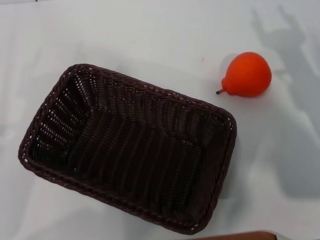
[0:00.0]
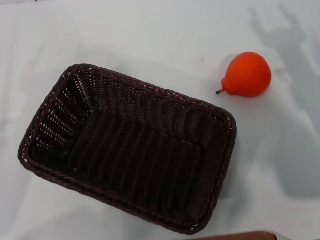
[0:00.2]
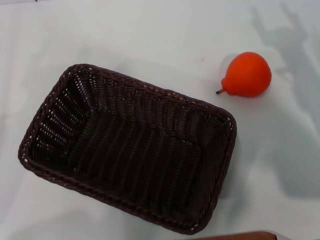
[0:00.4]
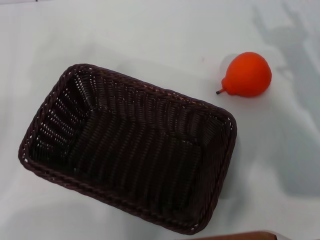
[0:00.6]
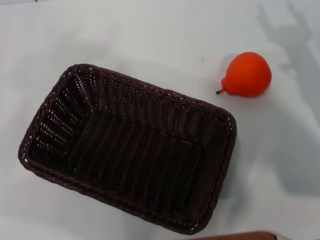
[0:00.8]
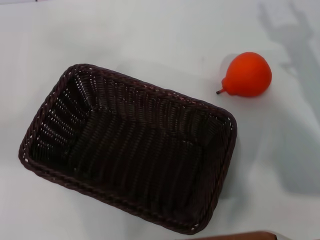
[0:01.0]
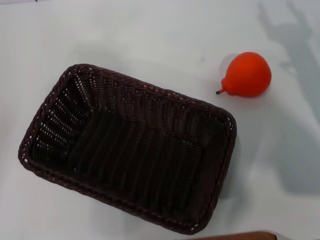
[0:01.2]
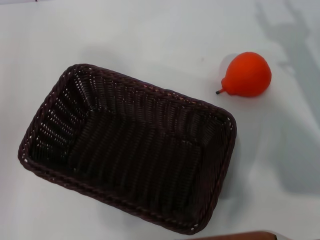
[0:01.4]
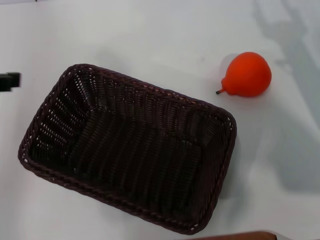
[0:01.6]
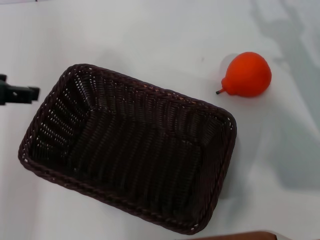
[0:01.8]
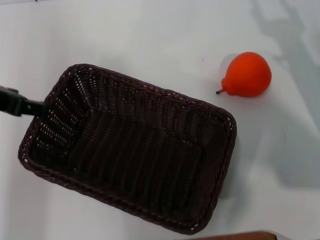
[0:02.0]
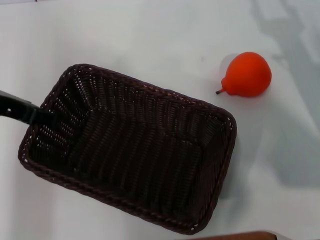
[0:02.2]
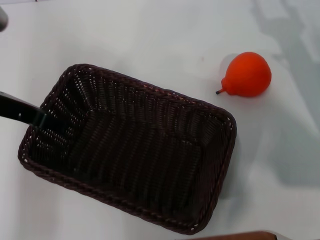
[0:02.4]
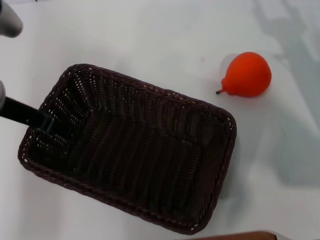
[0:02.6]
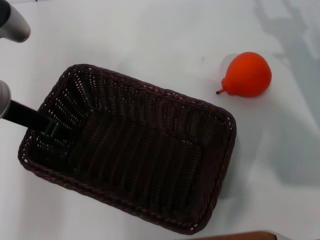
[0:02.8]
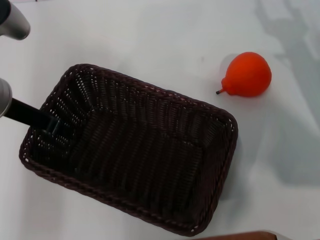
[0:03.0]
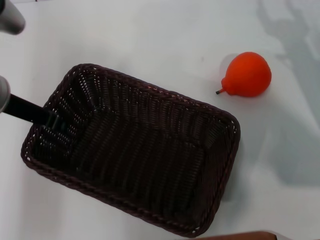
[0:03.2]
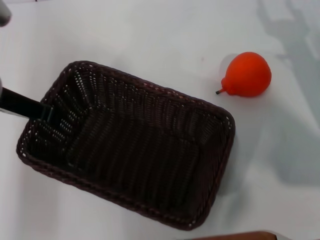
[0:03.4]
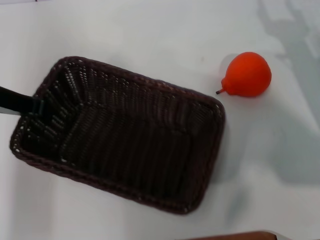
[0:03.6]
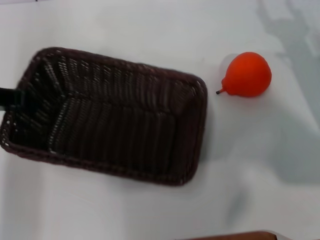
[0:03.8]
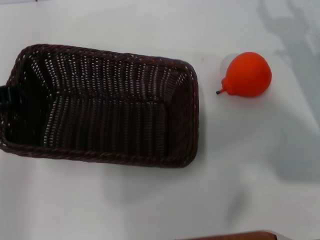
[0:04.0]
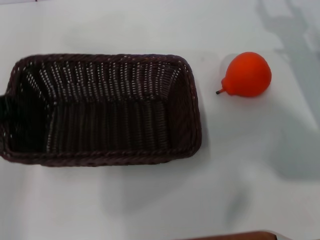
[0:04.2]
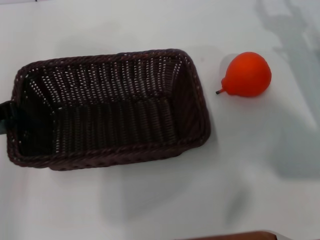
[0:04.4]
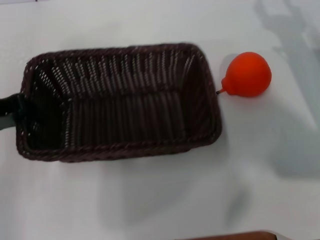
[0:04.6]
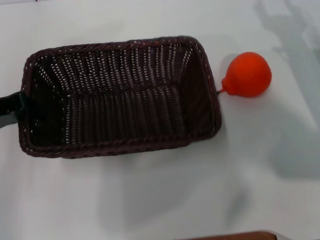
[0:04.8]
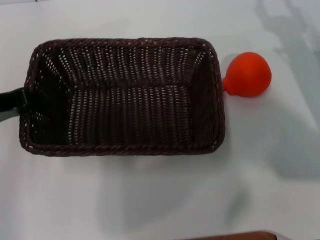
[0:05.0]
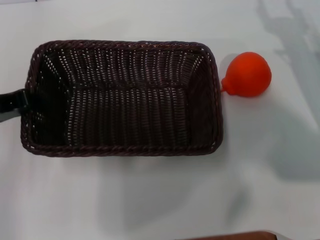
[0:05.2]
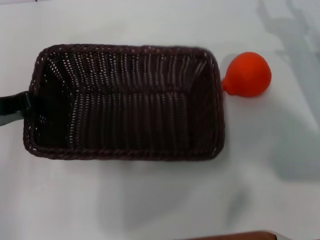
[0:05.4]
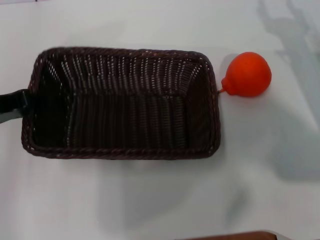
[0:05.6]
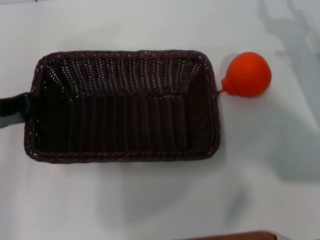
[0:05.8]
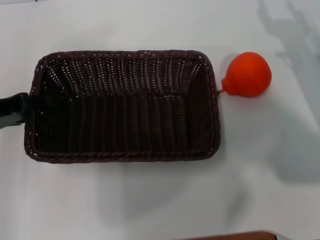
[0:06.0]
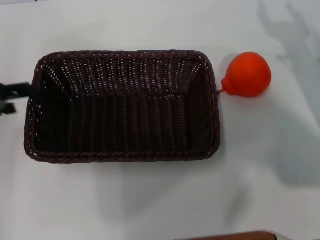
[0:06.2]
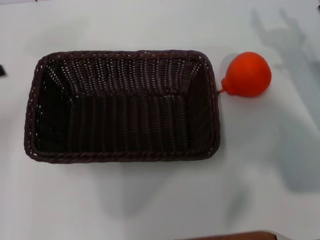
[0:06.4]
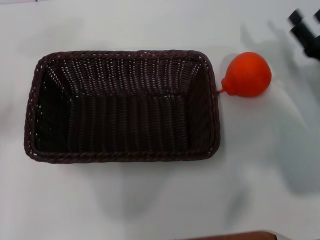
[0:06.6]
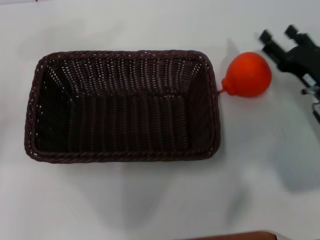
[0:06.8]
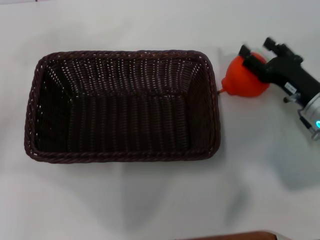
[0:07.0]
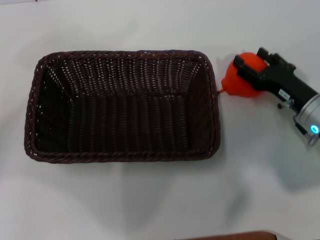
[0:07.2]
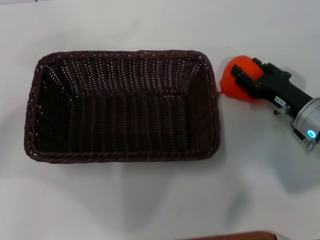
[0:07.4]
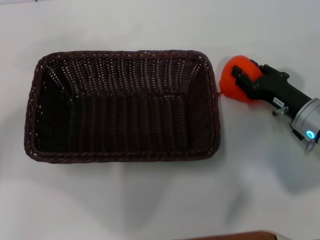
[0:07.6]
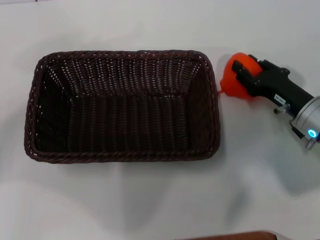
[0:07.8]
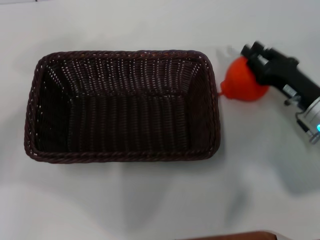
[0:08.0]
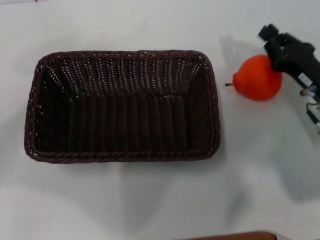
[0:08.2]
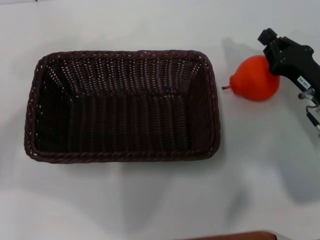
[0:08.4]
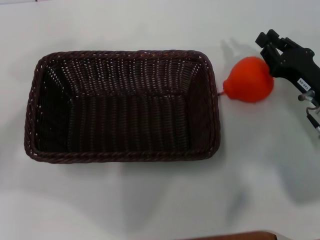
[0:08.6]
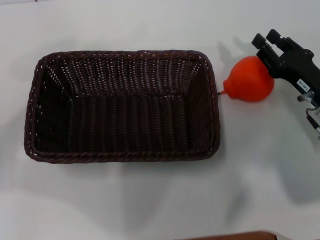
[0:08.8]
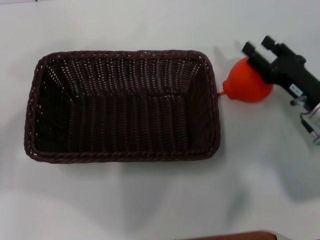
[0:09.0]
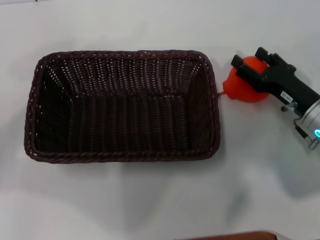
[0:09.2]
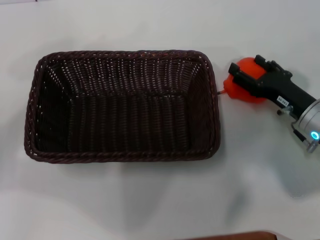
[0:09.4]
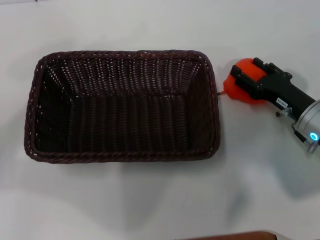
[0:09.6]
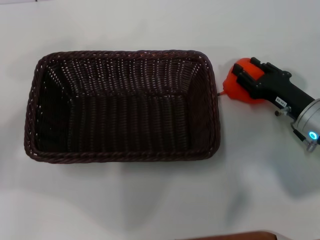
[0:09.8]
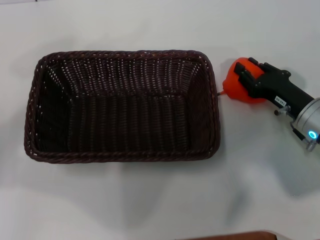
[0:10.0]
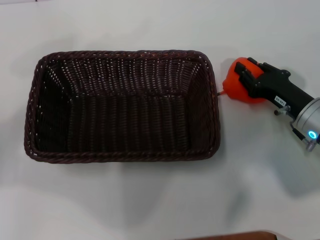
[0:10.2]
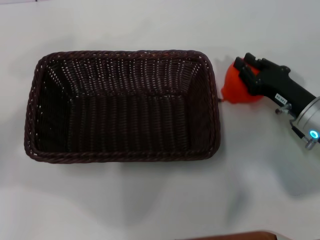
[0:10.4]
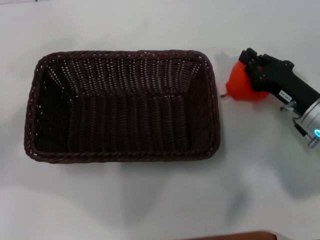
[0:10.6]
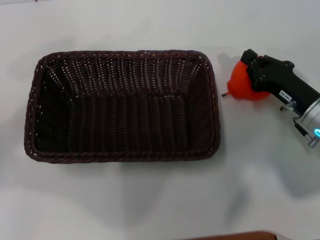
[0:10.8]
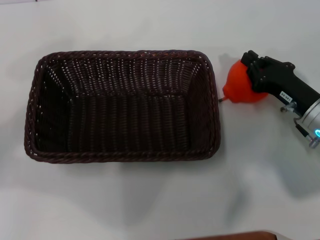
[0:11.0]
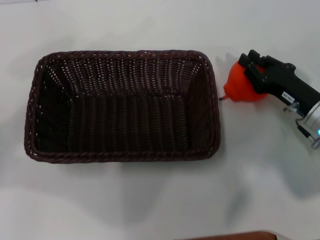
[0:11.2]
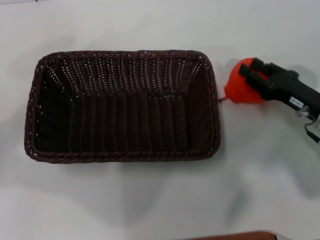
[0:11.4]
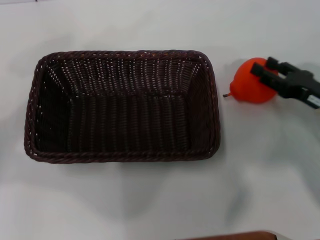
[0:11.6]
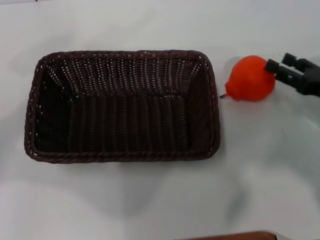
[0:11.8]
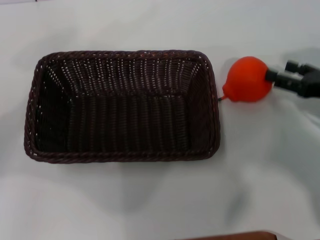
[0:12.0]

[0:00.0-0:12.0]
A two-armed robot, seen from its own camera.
Task of the whole recording: the left gripper pick up the black basket and place it horizontally in the middle of the table, the right gripper pick up the orange and place it into the black basket.
Step, 0:00.0 to 0:03.6: Pick up the dark basket with the left gripper.
Step, 0:03.8 to 0:06.0: Place the dark basket in the center of view with the left gripper.
0:00.0 to 0:01.6: The left gripper travels upward and forward by approximately 20 cm; the right gripper opens.
0:01.6 to 0:03.0: The left gripper is displaced to the right, downward and forward by approximately 10 cm.
0:03.0 to 0:04.4: The left gripper goes roughly 10 cm to the left, and closes its fingers.
0:04.4 to 0:06.0: The left gripper opens up.
0:06.0 to 0:07.6: The right gripper shifts roughly 10 cm to the left and downward; the left gripper heads to the left, covering roughly 10 cm, and opens its fingers.
0:07.6 to 0:09.0: The right gripper closes, then opens again.
0:09.0 to 0:10.4: The right gripper opens, then closes again.
0:10.4 to 0:12.0: The right gripper shifts about 10 cm to the right and upward, and opens.

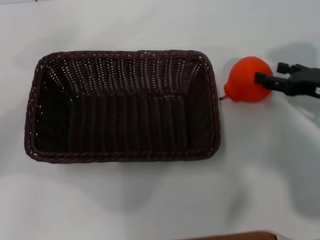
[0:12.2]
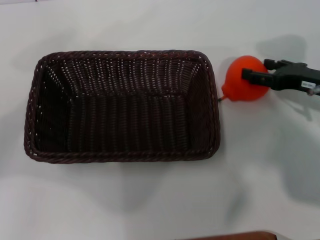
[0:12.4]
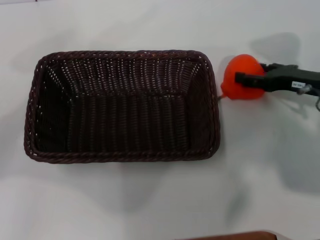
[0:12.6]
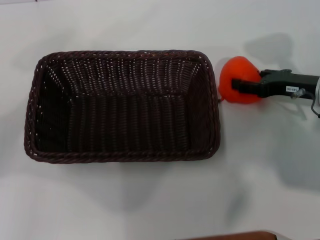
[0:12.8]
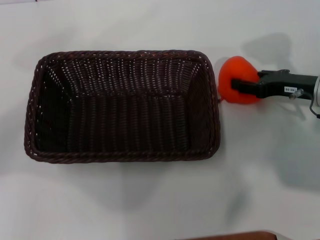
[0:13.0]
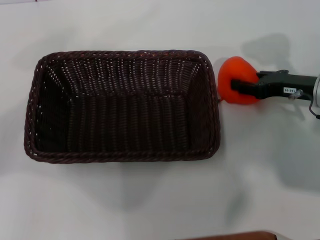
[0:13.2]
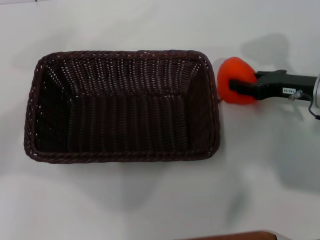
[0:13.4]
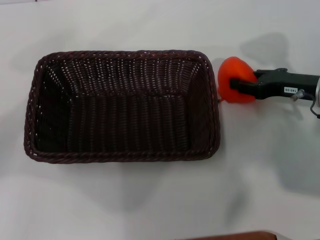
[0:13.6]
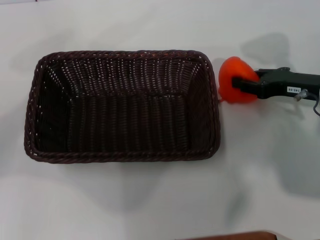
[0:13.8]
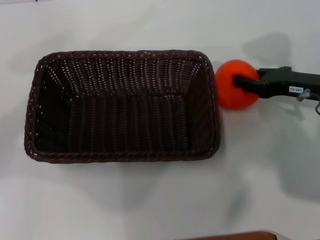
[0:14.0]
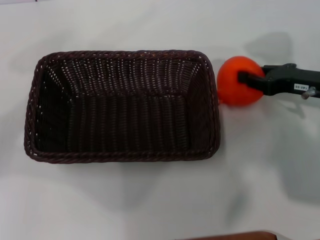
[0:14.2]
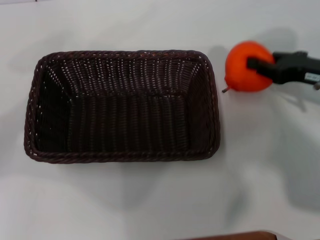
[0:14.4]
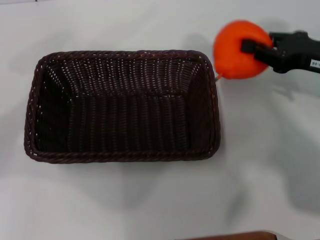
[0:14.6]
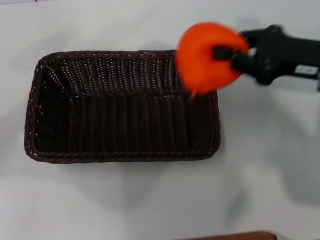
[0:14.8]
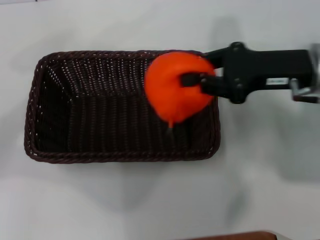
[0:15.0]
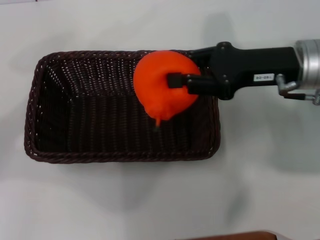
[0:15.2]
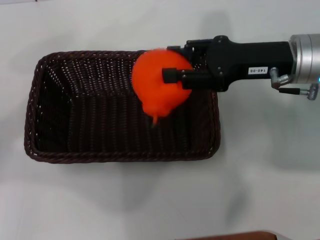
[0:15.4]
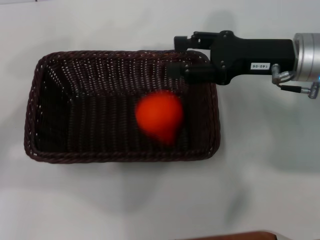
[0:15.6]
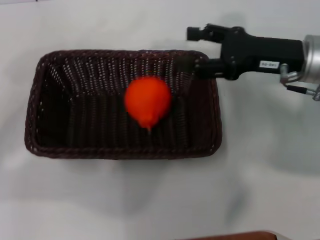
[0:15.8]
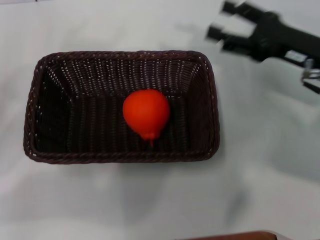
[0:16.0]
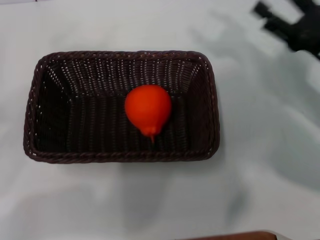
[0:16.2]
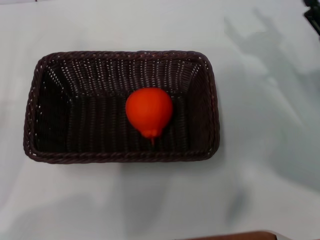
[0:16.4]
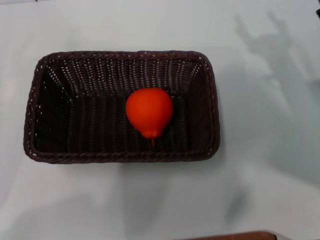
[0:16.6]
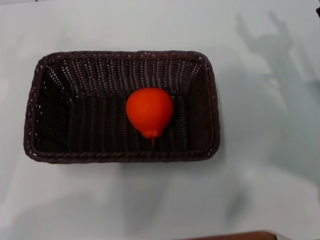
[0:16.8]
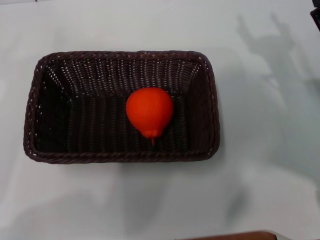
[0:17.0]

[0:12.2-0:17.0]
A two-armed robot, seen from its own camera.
Task of the whole recording: the left gripper pick up the black basket and place it horizontally in the middle of the table, the right gripper pick up the orange and place it into the black basket.
Step, 0:12.2 to 0:14.2: Pick up the orange with the right gripper.
Step, 0:14.4 to 0:15.6: Place the orange into the dark basket with the right gripper.
0:12.2 to 0:13.8: The right gripper closes its fingers.
0:13.8 to 0:15.4: The right gripper travels to the left and upward by about 10 cm.
0:15.4 to 0:17.0: The right gripper heads downward, to the right and backward, covering roughly 15 cm, and opens up; the left gripper moves downward and backward, some 10 cm.

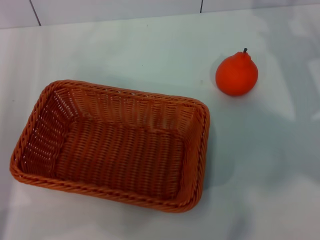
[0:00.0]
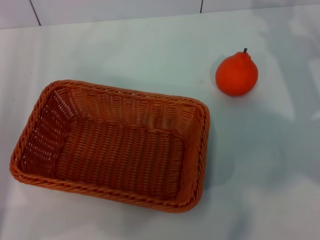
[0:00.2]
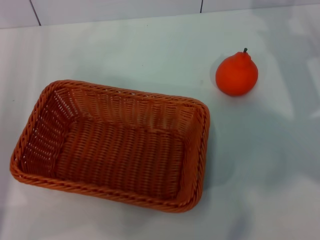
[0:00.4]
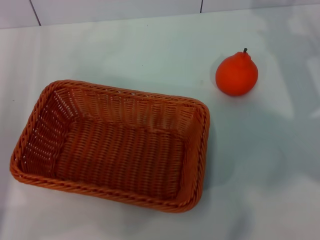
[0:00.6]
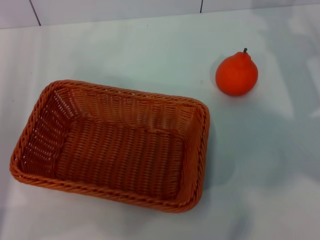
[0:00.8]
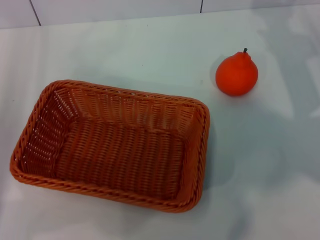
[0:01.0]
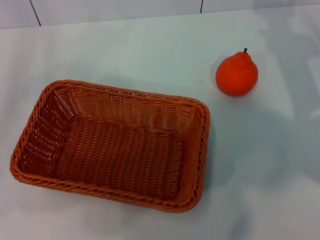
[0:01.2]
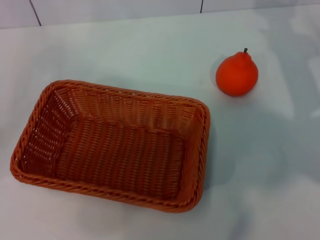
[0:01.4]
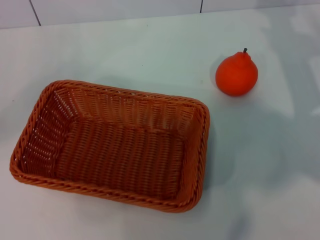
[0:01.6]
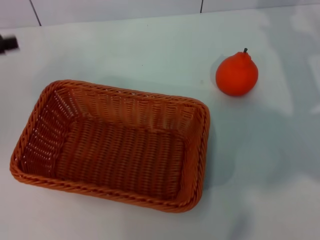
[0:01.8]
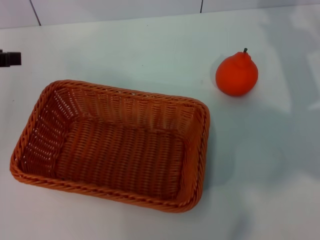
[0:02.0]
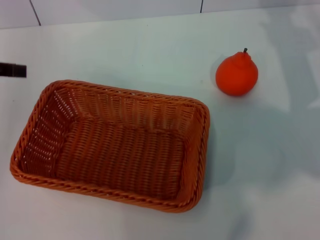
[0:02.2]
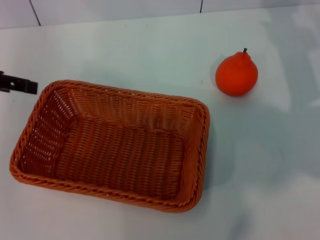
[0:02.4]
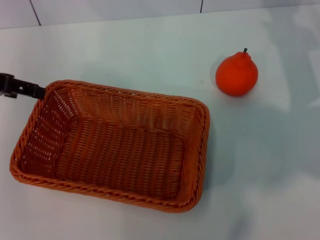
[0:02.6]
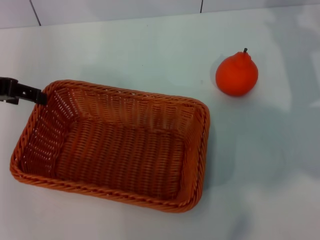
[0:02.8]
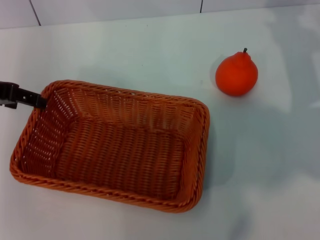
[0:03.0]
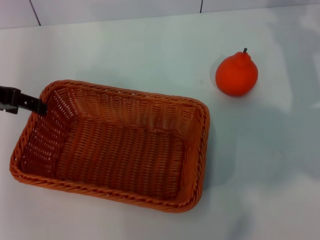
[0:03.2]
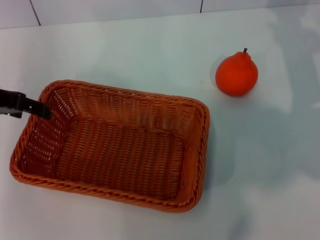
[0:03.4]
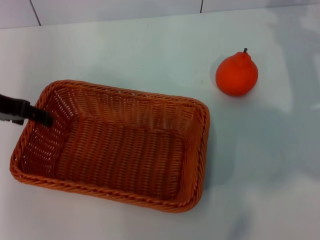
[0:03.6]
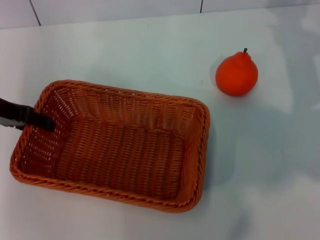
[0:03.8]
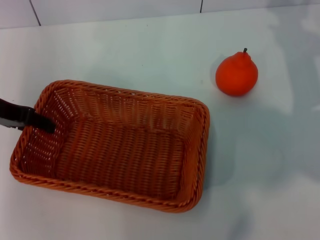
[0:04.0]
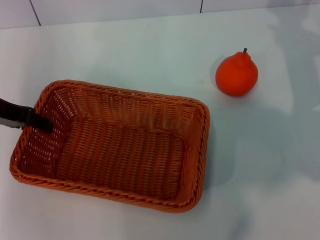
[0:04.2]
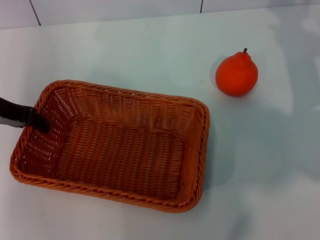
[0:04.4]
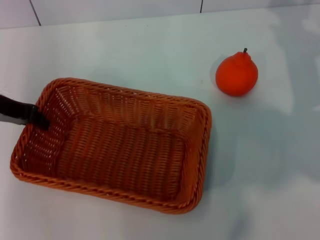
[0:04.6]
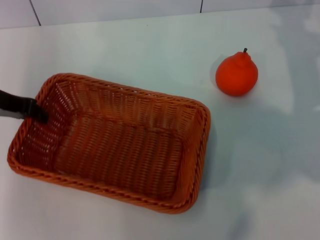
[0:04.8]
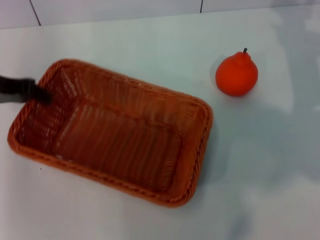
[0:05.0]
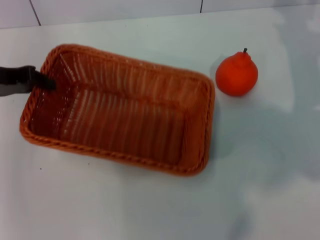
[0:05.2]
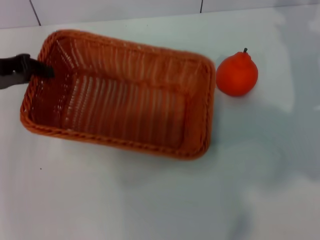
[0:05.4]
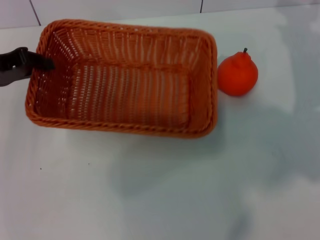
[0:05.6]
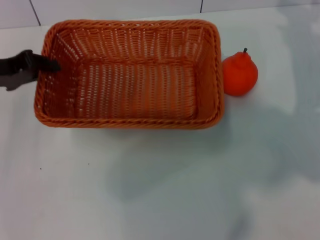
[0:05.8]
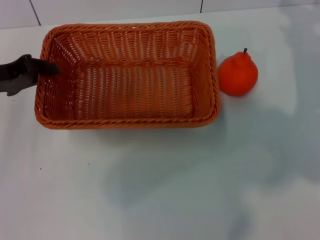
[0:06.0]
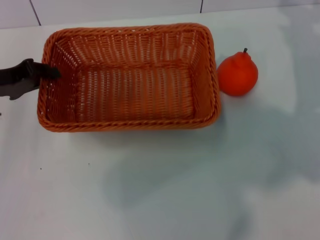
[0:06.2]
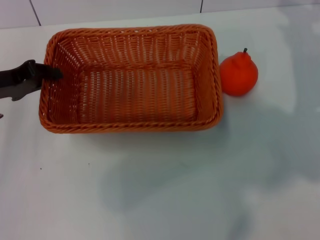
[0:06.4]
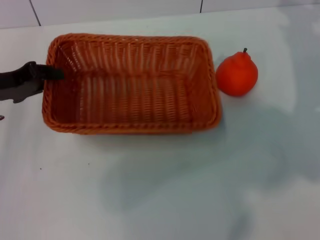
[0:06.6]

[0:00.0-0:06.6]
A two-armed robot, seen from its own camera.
Task of the whole recording: the left gripper pick up the yellow basket and place it horizontally in the middle of the table, the right gripper pick up the orange and place it into the yellow basket.
Step, 0:00.0 to 0:05.2: Pick up the light basket with the left gripper.
0:00.0 to 0:01.6: The left gripper heads upward, to the left and forward, covering some 15 cm.
0:01.6 to 0:03.2: The left gripper heads to the right, covering some 10 cm.
0:03.2 to 0:05.0: The left gripper closes its fingers.
0:05.0 to 0:06.6: The left gripper is displaced downward by approximately 5 cm.
